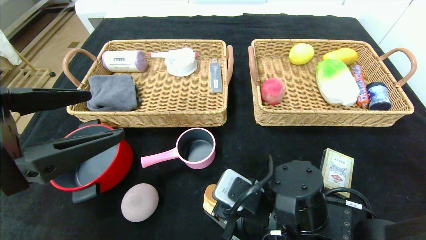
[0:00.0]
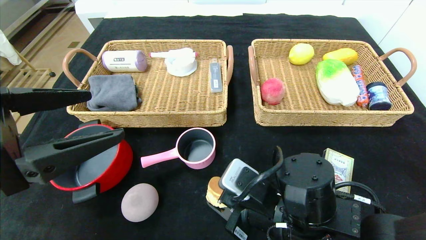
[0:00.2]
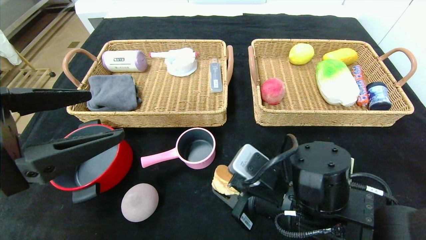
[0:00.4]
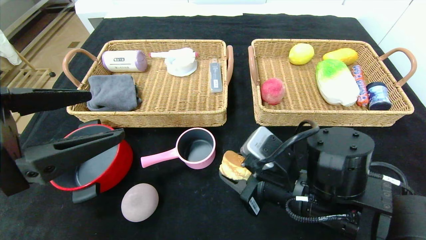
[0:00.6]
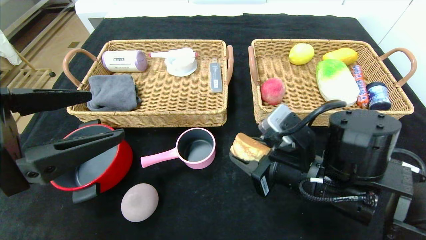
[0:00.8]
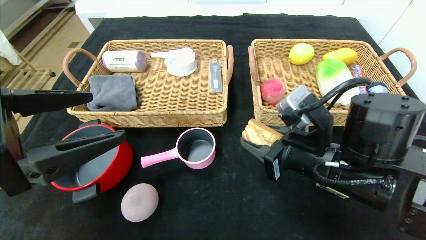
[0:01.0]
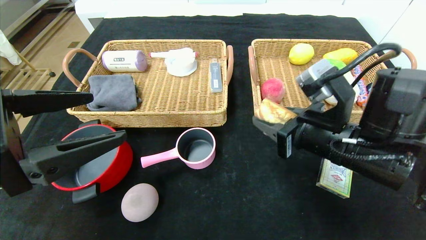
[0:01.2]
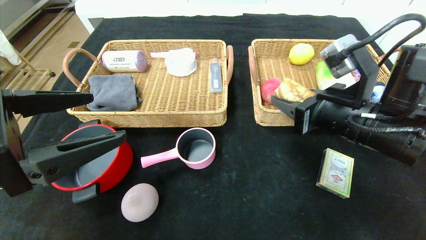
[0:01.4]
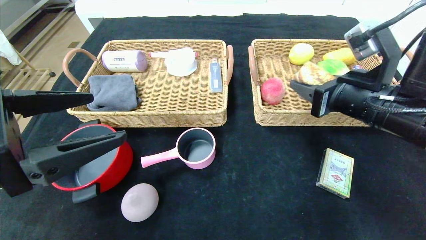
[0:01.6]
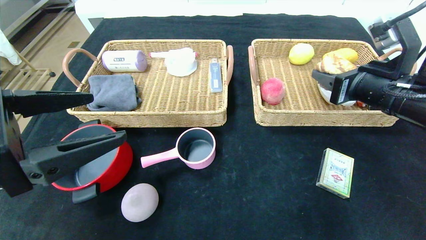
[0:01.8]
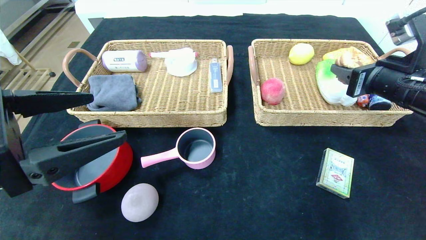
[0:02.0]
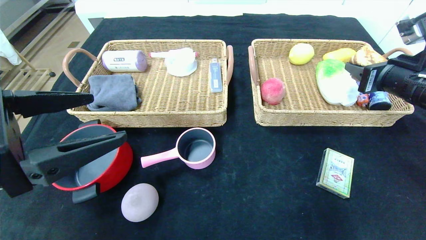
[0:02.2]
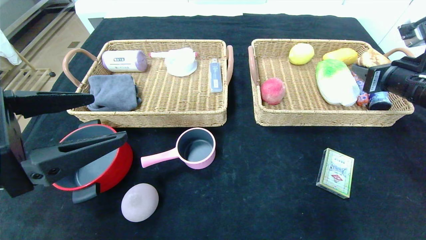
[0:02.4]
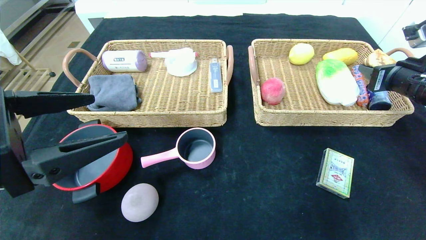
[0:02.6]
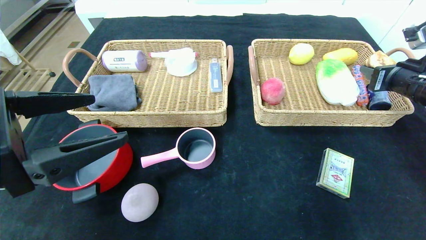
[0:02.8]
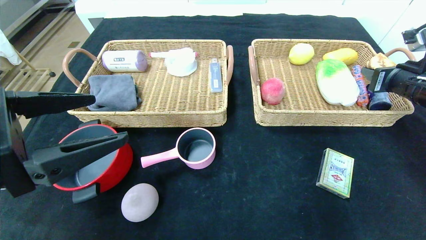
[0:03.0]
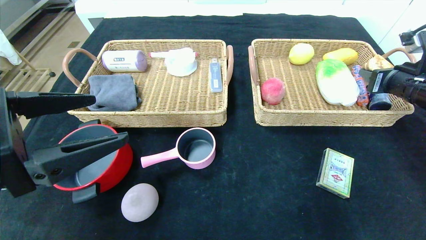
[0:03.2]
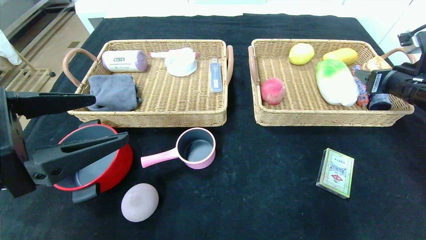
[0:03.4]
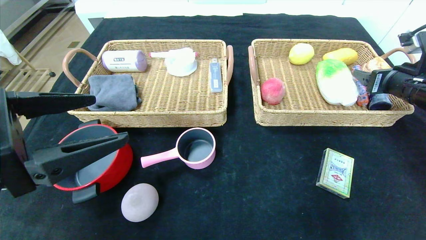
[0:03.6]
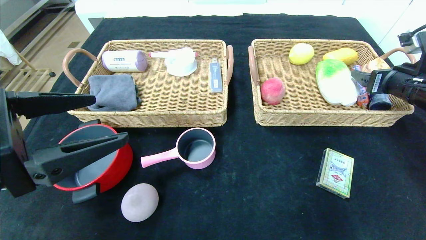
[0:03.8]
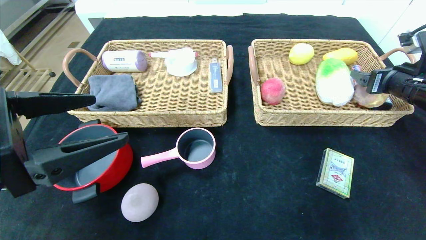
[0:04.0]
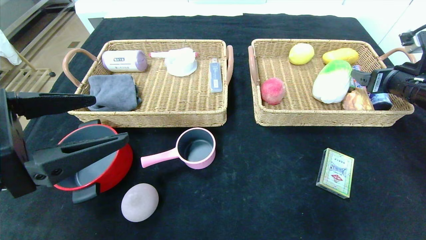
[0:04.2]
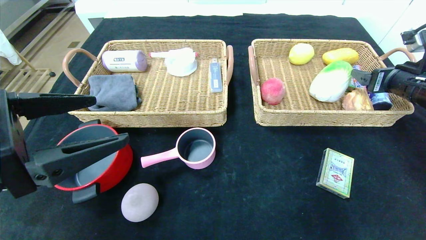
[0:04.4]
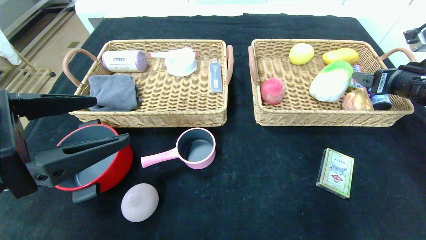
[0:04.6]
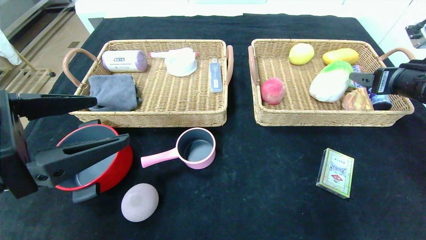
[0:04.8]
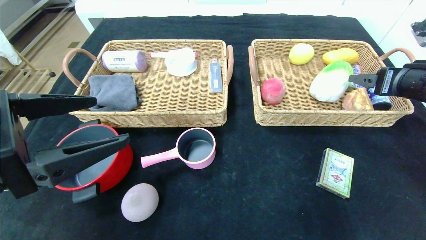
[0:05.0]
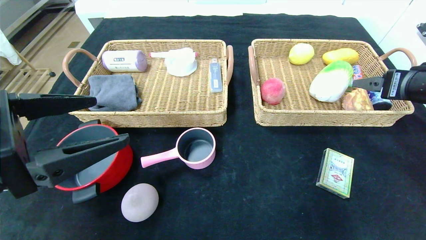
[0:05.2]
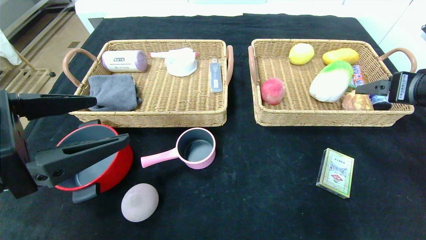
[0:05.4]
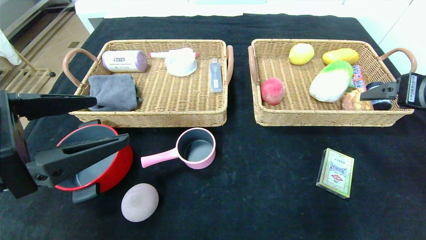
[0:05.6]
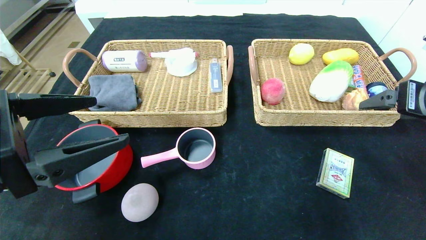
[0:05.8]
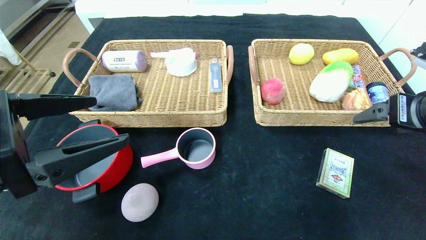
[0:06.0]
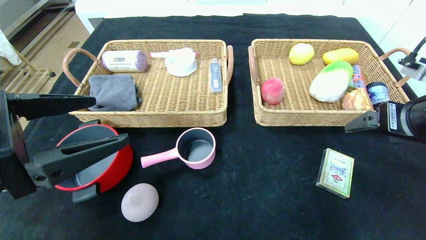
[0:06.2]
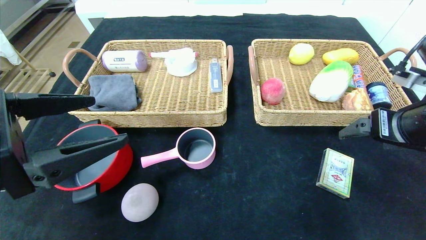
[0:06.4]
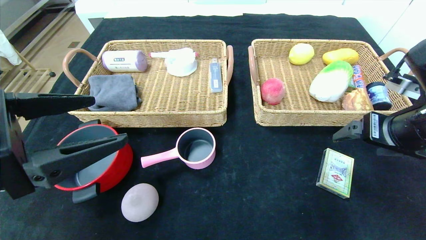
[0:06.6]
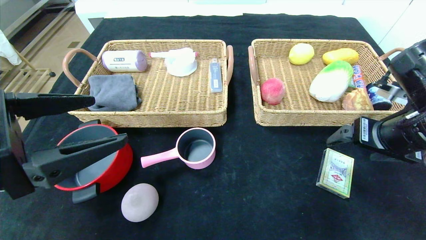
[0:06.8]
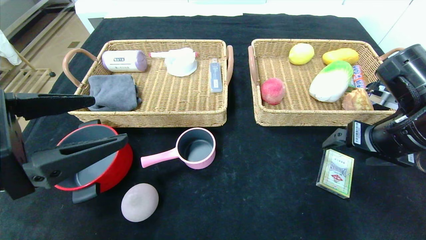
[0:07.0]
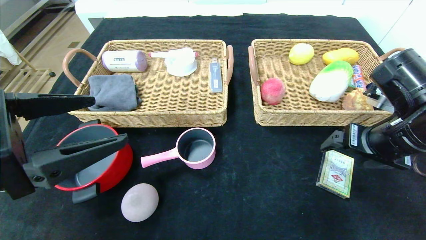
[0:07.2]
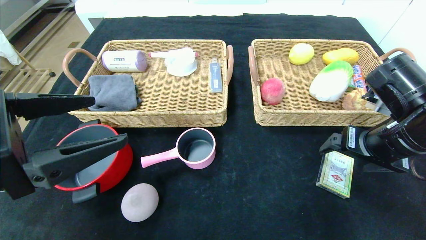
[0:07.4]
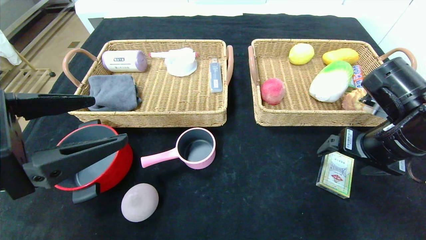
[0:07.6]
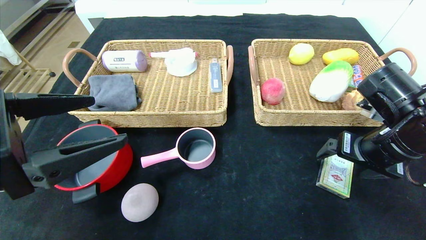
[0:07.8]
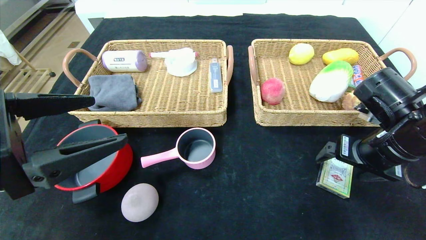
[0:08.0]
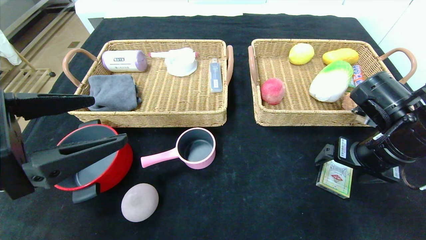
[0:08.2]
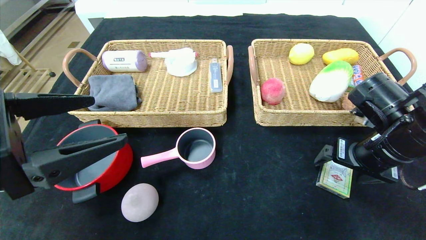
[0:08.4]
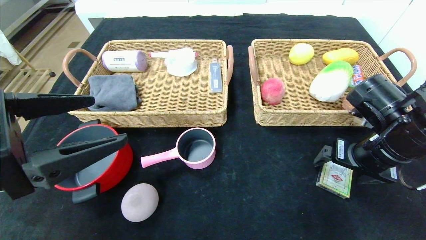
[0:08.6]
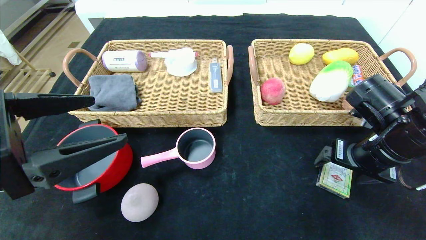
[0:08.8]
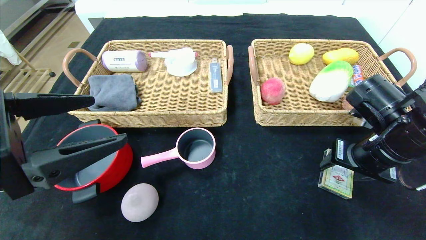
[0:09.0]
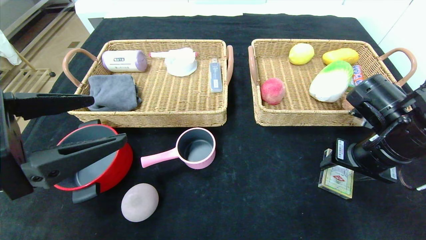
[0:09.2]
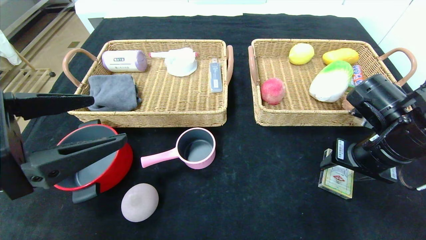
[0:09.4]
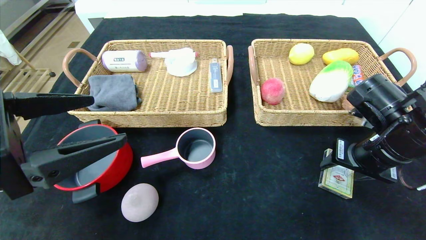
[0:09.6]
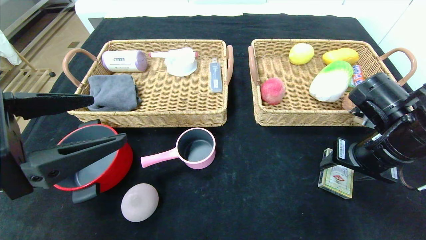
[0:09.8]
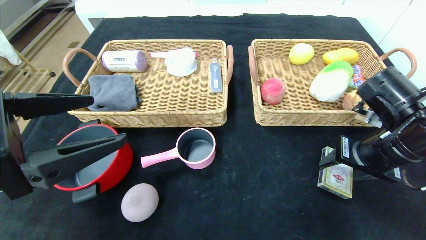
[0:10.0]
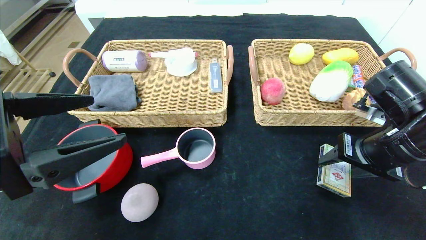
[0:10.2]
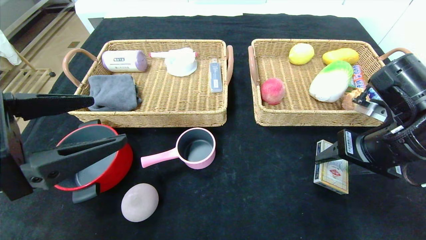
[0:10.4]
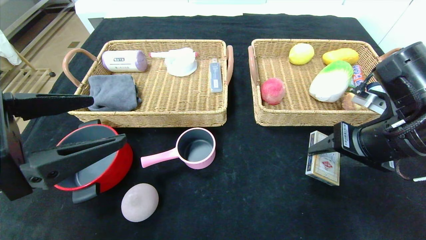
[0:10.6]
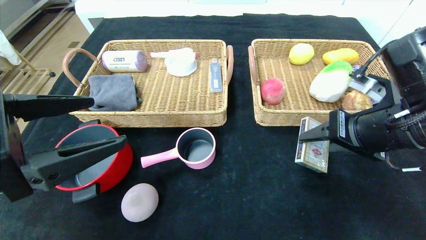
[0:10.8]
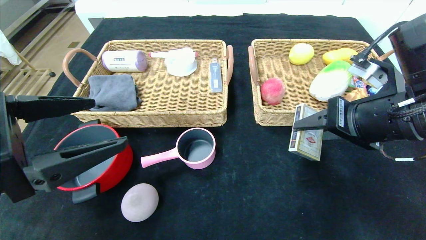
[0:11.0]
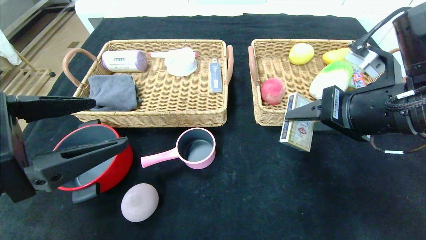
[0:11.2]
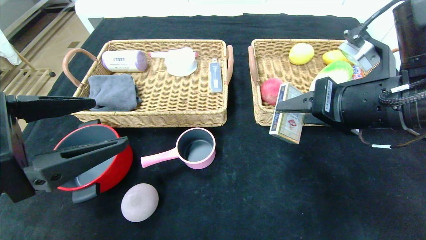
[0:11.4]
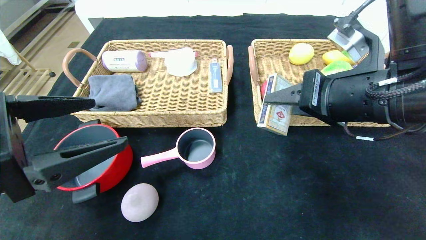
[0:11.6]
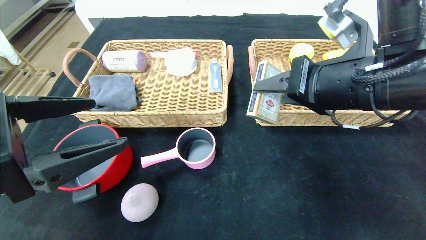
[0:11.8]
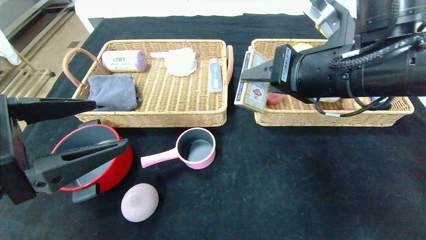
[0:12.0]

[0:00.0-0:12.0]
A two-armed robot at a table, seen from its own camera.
Step, 0:00.0 to 0:03.8: Grasp the round bread and put it in the right basket.
0:00.0 to 0:01.6: The right gripper heads upward, to the right and forward, covering about 20 cm.
0:01.6 to 0:03.0: The right gripper goes roughly 15 cm to the right and forward.
0:03.0 to 0:04.4: The right gripper opens its fingers.
0:04.4 to 0:06.0: The right gripper shifts some 10 cm backward and to the left.
0:06.0 to 0:07.6: The right gripper is displaced downward by about 5 cm.
0:07.6 to 0:09.0: The right gripper closes.
0:09.0 to 0:10.4: The grippers stay close to where they were, moving slightly.
0:10.4 to 0:12.0: The right gripper moves to the left and upward, about 15 cm.

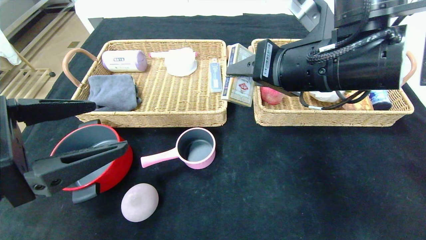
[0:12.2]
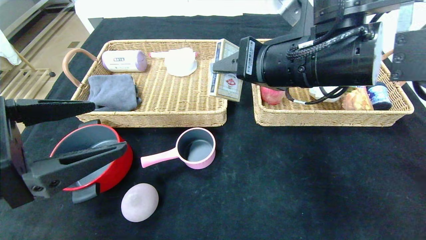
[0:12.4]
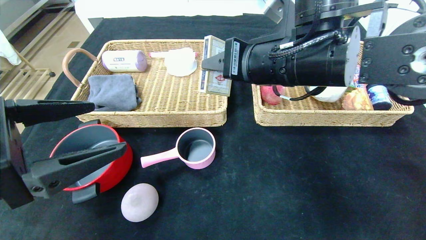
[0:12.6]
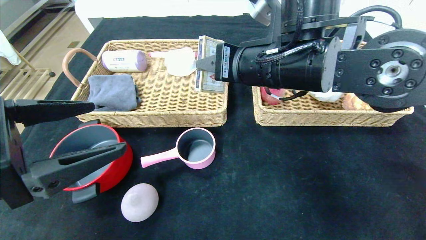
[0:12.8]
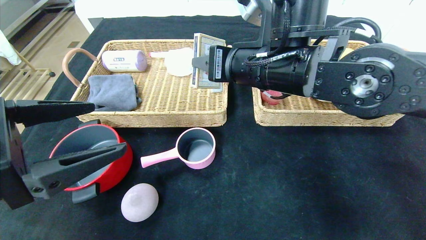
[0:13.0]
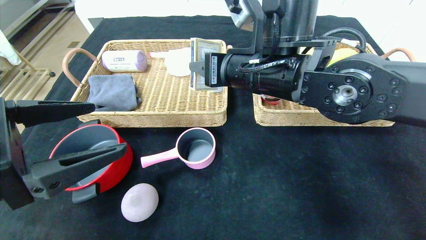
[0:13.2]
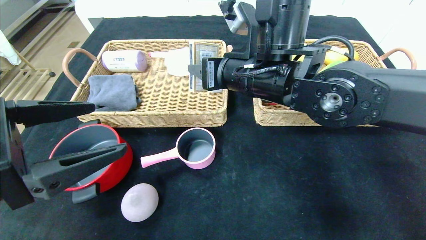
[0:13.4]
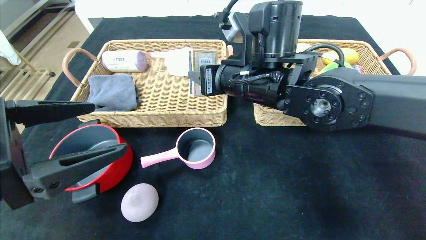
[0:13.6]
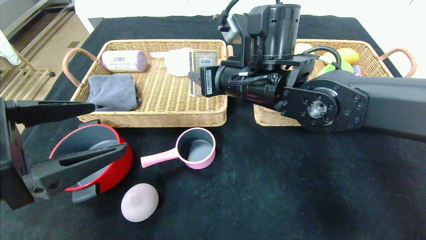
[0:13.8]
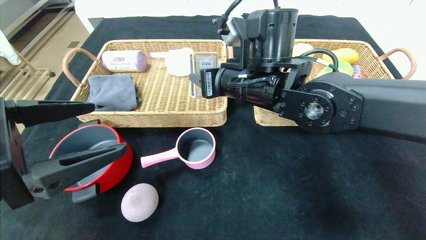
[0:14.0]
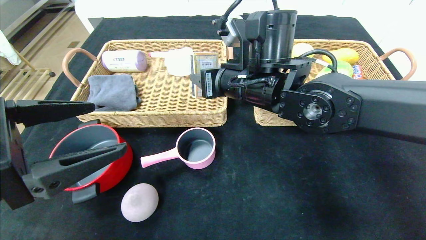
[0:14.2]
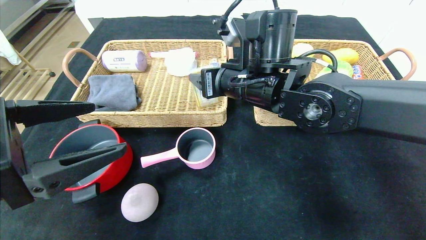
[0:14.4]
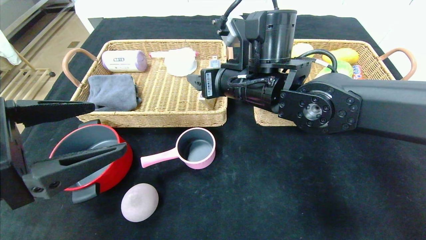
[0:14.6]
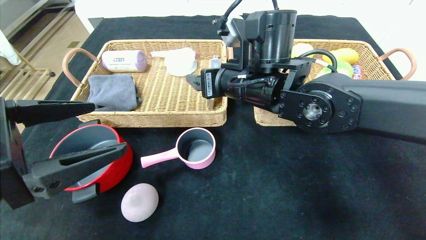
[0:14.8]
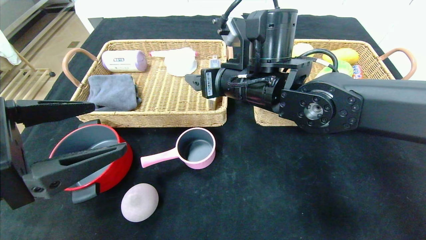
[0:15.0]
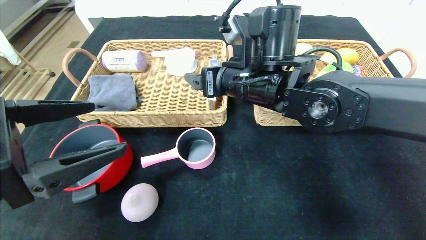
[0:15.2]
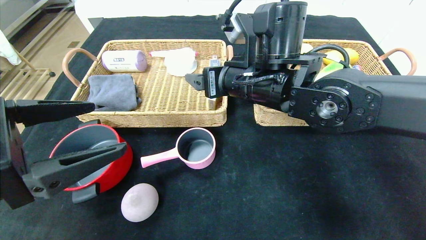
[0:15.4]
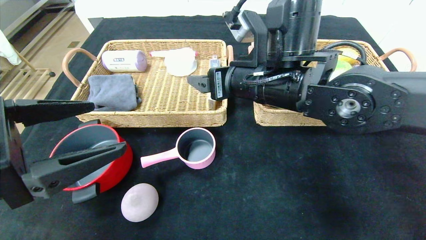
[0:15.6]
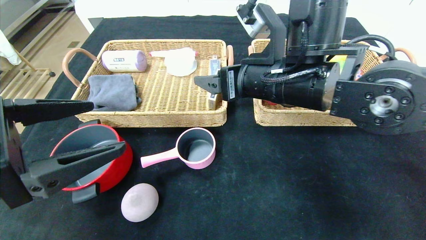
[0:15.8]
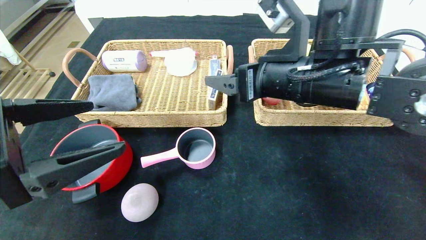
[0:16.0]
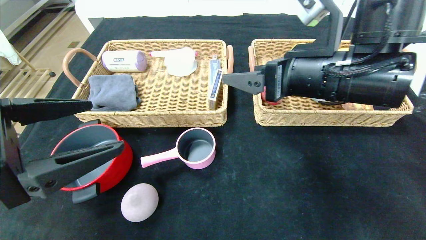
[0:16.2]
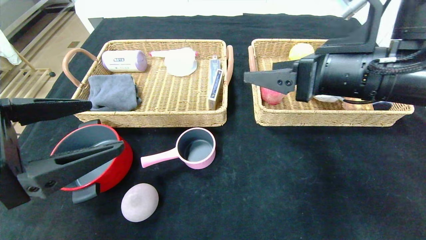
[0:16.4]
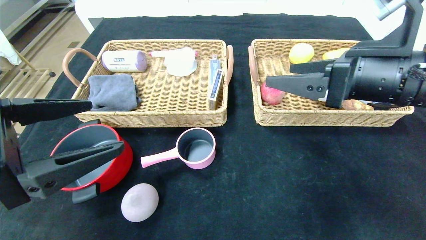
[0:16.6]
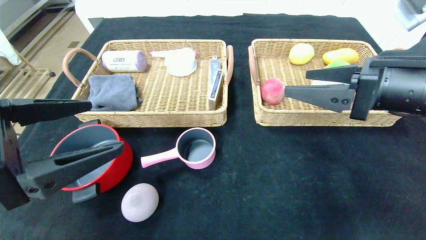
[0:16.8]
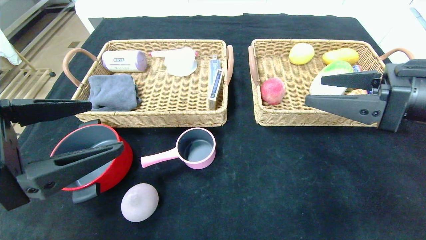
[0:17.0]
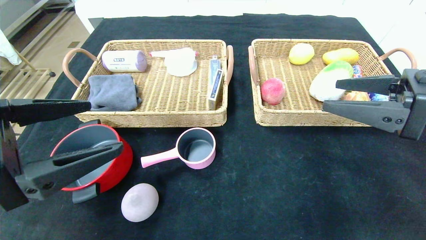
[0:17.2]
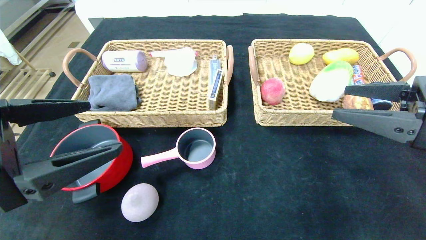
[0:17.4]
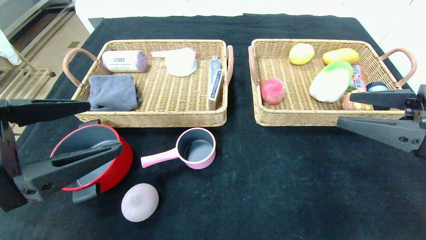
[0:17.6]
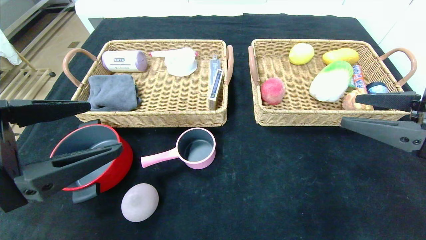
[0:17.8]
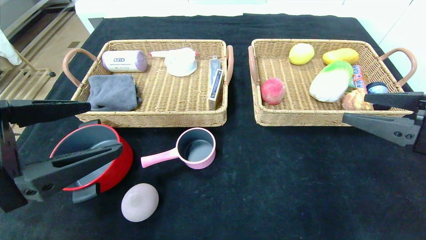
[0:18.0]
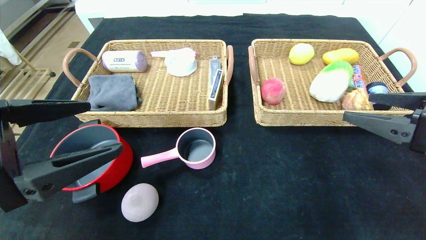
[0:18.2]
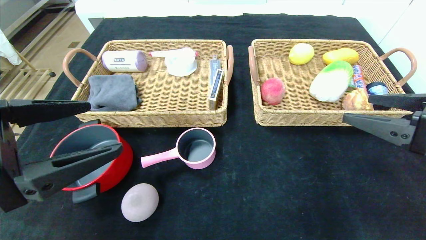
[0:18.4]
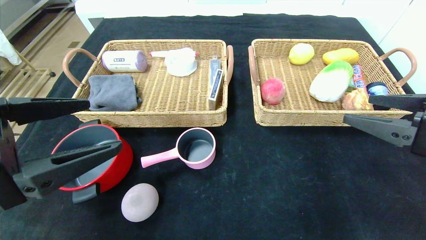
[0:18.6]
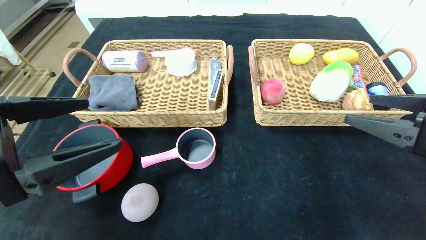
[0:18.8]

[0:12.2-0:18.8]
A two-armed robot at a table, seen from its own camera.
0:12.2 to 0:13.8: The right gripper is displaced to the left and forward by some 10 cm.
0:13.8 to 0:15.4: The right gripper opens its fingers.
0:15.4 to 0:17.2: The right gripper travels to the right and backward by about 25 cm.
0:17.2 to 0:18.8: The grippers stay close to where they were, moving slightly.
